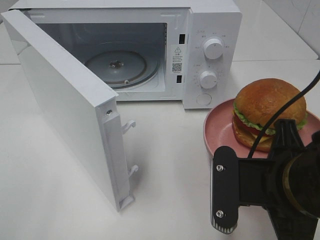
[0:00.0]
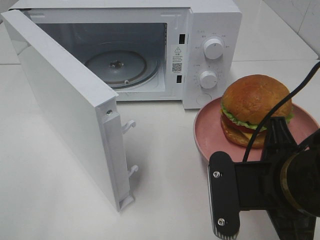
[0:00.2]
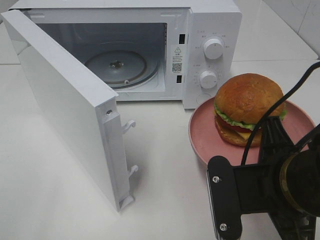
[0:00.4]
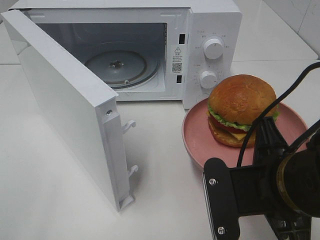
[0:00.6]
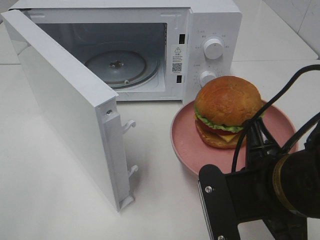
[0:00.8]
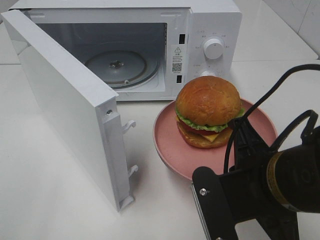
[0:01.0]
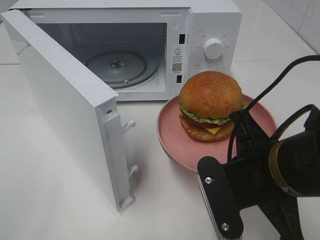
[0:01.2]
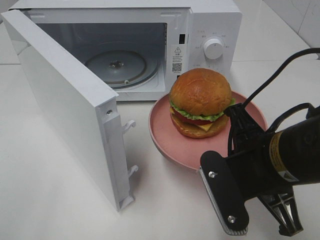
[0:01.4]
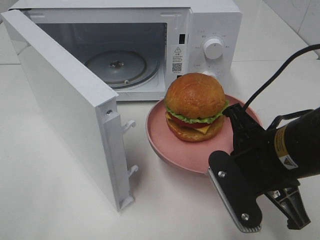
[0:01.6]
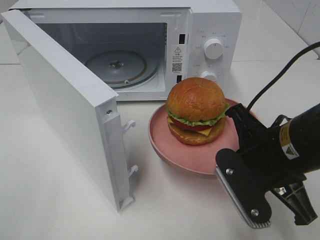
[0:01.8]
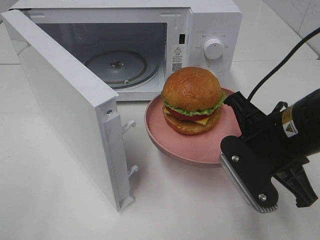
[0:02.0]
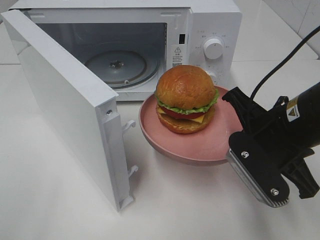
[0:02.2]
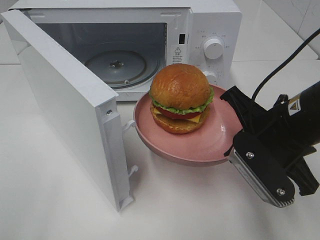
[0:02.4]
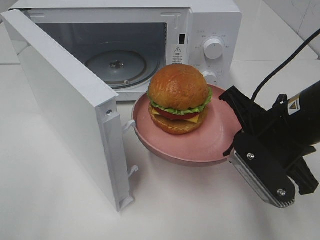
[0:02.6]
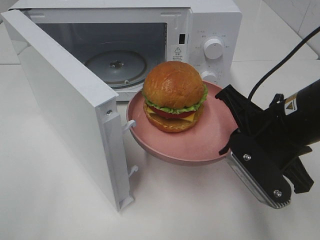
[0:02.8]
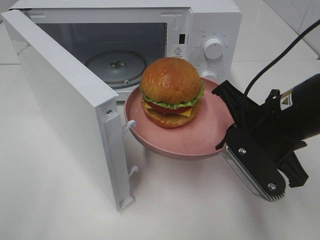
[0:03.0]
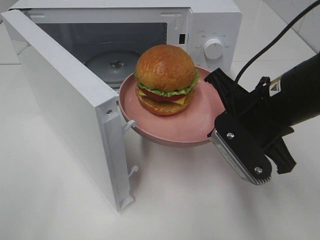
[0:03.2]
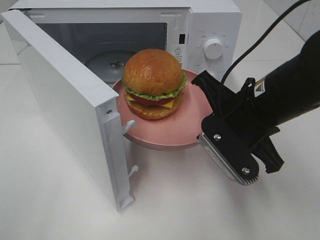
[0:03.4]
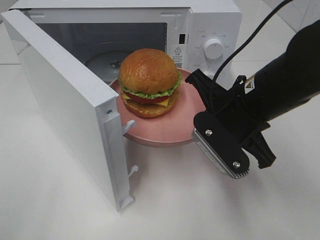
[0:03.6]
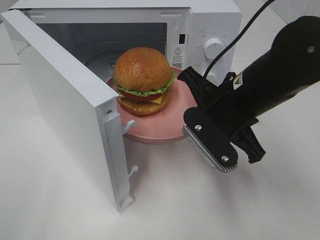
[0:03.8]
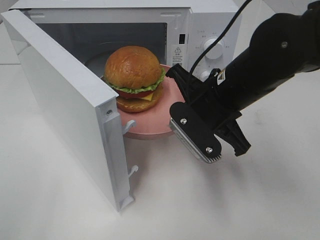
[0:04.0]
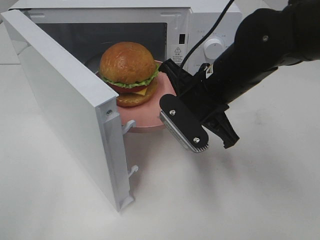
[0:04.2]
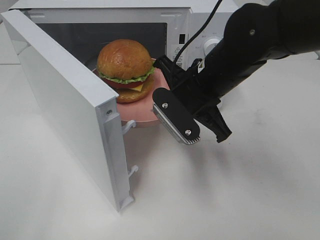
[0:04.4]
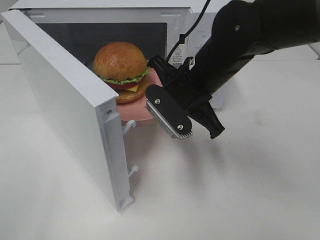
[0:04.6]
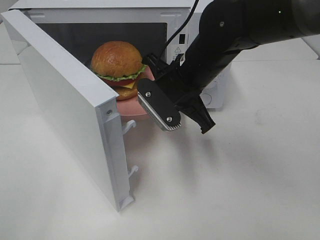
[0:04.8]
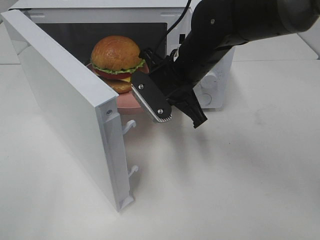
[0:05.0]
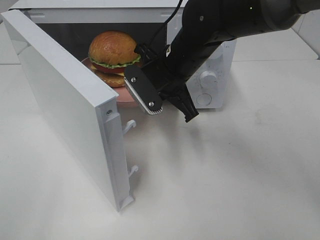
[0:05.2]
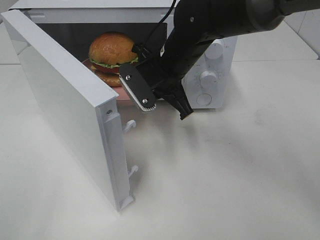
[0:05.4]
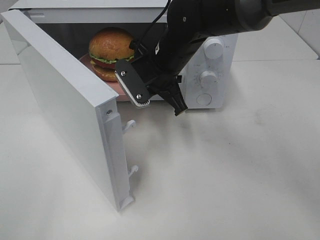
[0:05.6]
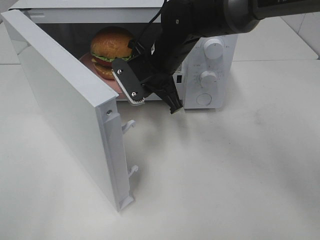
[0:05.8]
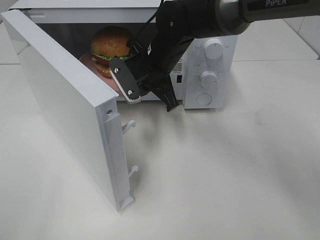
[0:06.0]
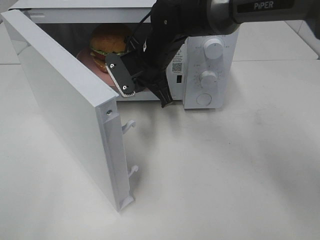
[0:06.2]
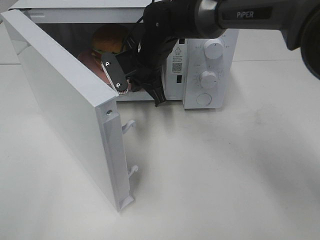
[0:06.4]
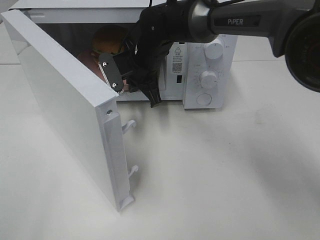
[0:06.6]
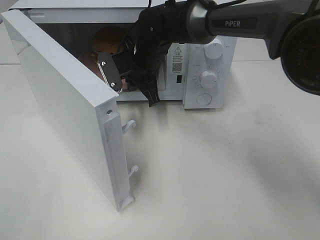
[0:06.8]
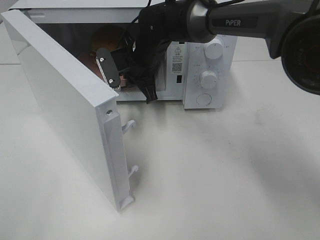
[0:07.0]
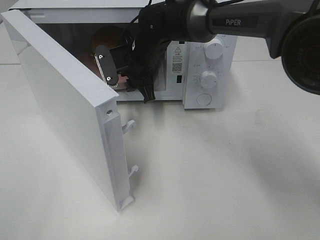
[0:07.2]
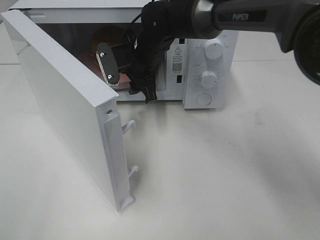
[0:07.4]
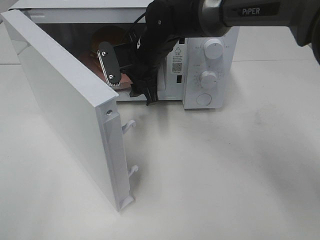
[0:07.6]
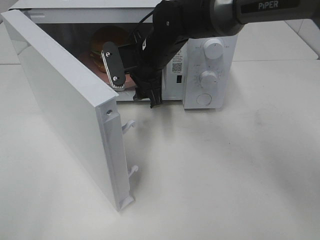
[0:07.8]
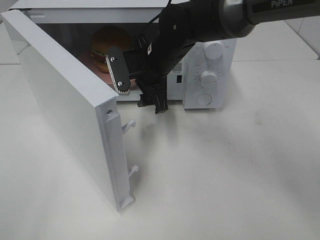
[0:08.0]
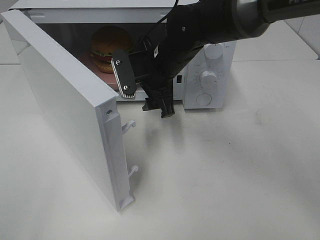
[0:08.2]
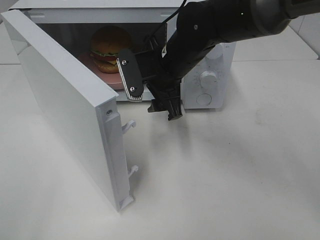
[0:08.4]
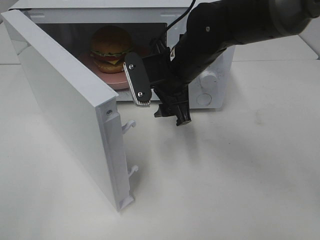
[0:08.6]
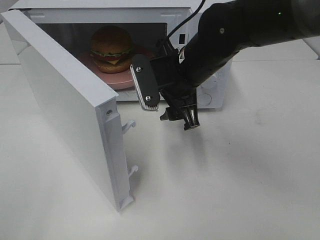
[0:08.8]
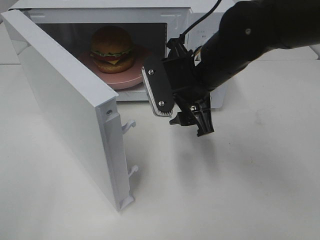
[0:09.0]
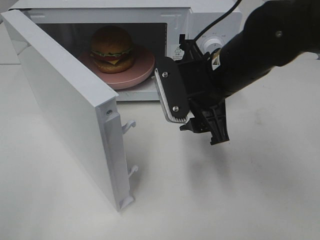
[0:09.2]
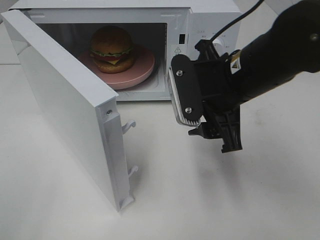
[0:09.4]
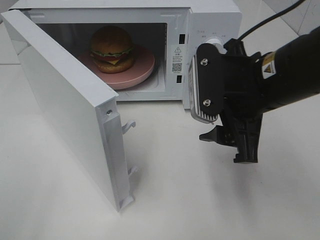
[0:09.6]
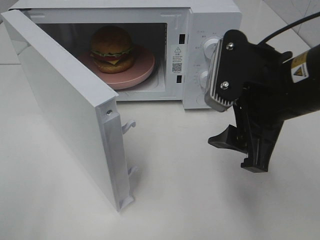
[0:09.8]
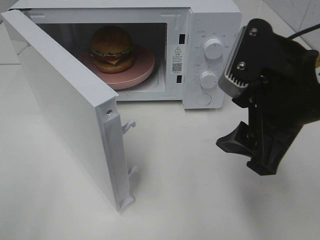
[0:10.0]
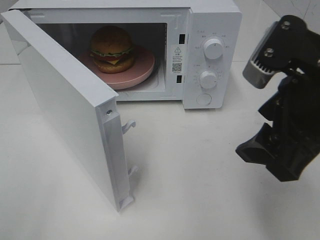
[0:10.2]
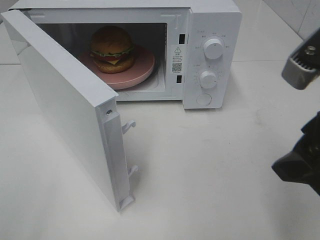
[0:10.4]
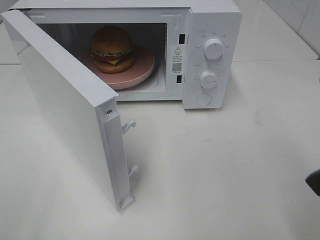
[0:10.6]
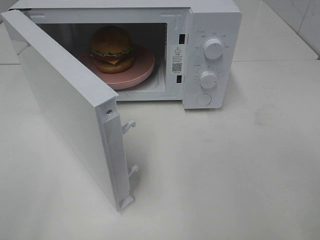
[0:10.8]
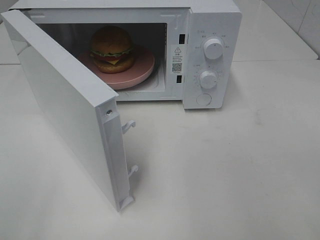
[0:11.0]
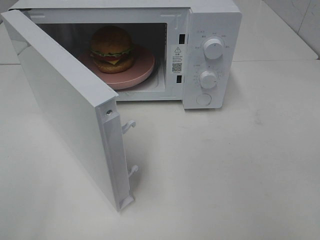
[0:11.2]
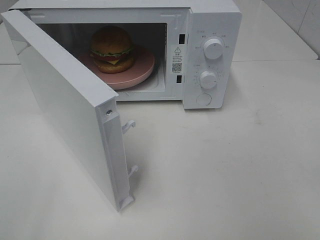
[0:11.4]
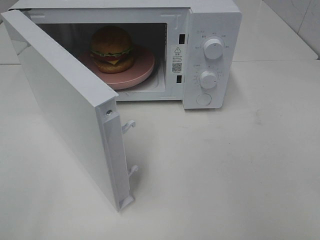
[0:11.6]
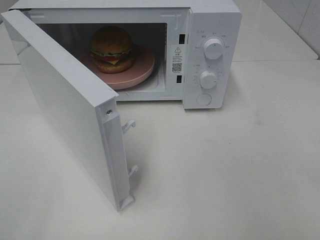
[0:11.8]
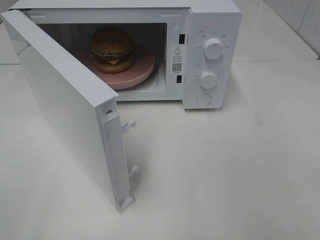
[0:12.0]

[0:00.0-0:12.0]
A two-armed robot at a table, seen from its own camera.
Task of the whole recording: Heat the burger.
Step, 0:00.0 to 0:07.2: Right hand: place the plate in the microwave.
0:03.0 to 0:04.4: The right gripper goes approximately 10 cm forward and to the left.
0:04.4 to 0:06.0: The right gripper is displaced forward and to the left by about 10 cm.
0:06.0 to 0:07.6: The right gripper opens up.
0:07.6 to 0:09.0: The right gripper is displaced backward and to the right by about 15 cm.
0:09.0 to 0:10.4: The right gripper travels backward, to the right and upward by roughly 20 cm.
0:10.4 to 0:12.0: The right gripper moves backward and to the right, roughly 15 cm.

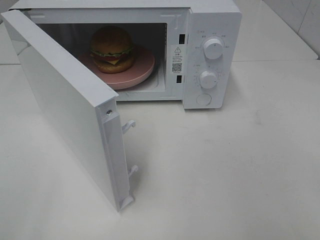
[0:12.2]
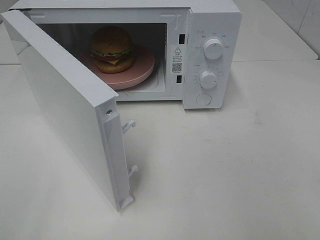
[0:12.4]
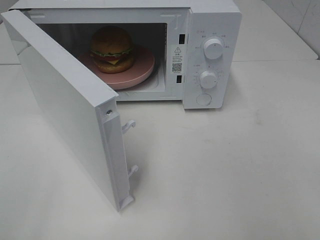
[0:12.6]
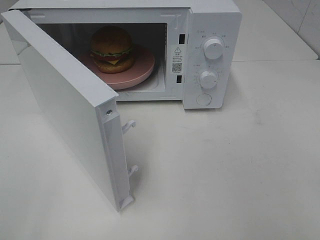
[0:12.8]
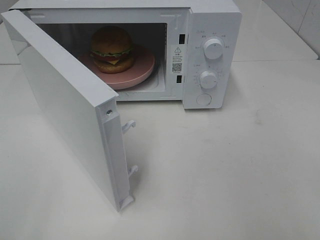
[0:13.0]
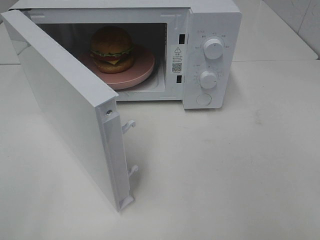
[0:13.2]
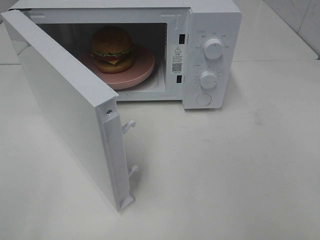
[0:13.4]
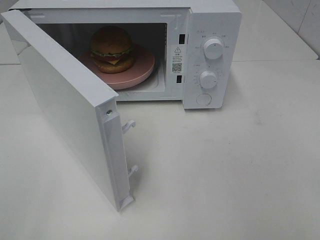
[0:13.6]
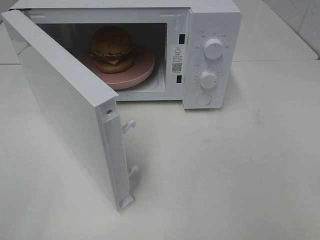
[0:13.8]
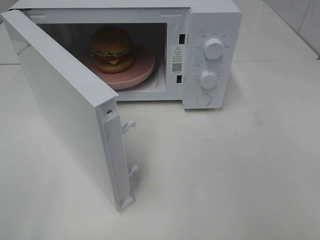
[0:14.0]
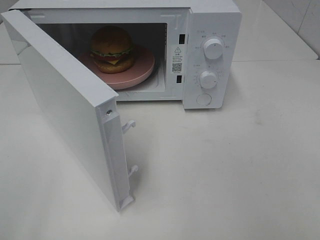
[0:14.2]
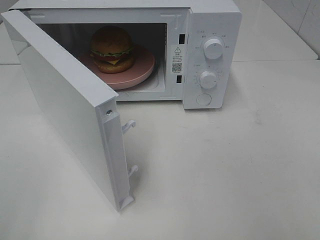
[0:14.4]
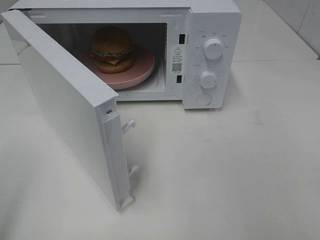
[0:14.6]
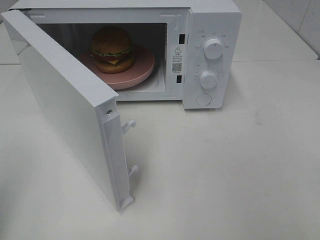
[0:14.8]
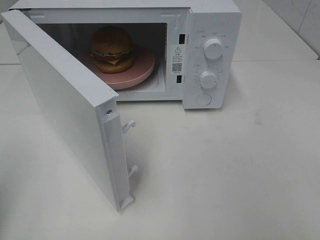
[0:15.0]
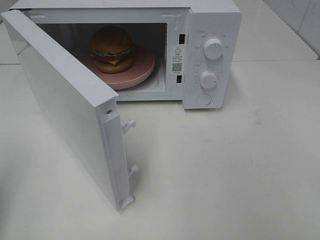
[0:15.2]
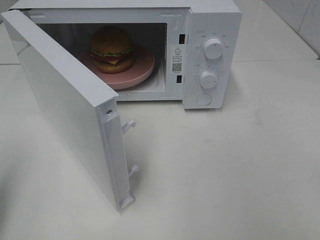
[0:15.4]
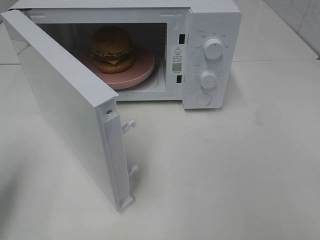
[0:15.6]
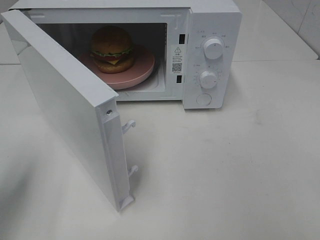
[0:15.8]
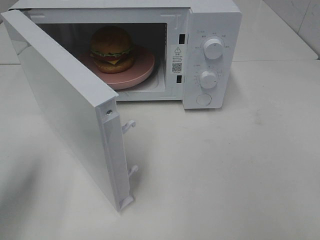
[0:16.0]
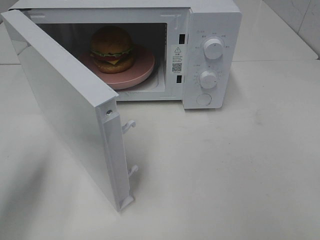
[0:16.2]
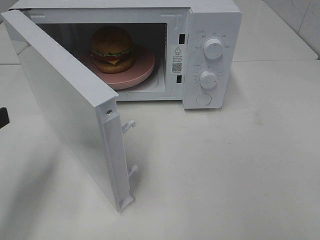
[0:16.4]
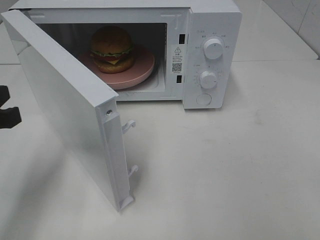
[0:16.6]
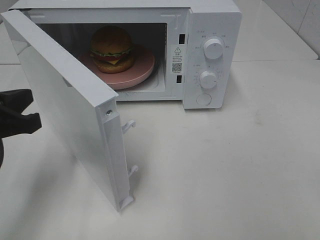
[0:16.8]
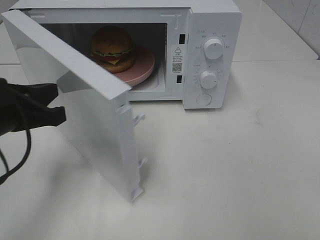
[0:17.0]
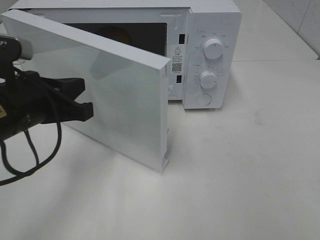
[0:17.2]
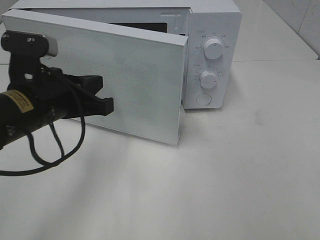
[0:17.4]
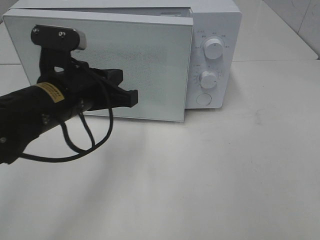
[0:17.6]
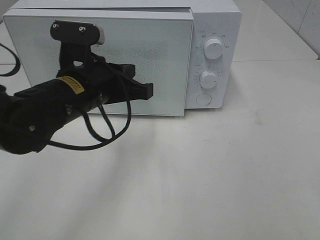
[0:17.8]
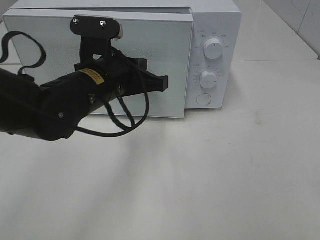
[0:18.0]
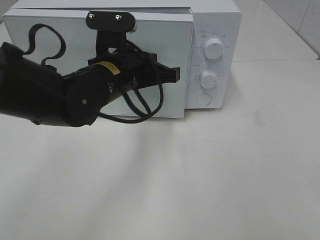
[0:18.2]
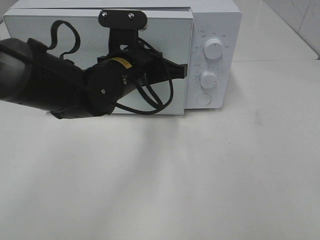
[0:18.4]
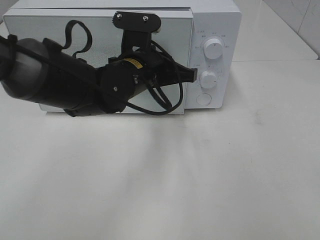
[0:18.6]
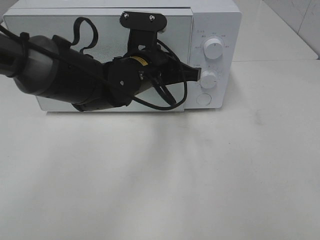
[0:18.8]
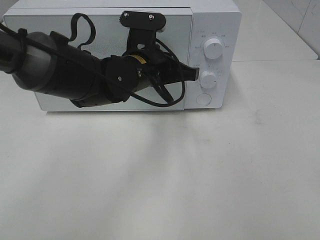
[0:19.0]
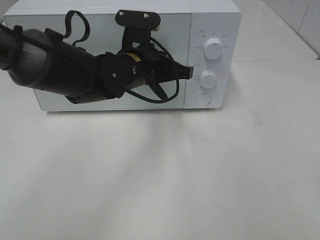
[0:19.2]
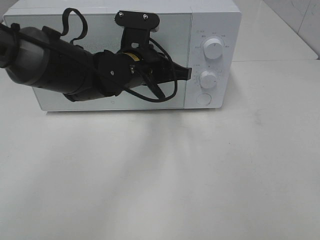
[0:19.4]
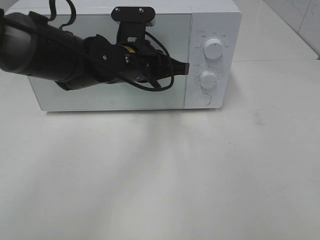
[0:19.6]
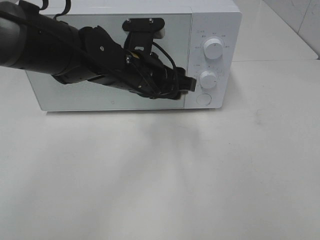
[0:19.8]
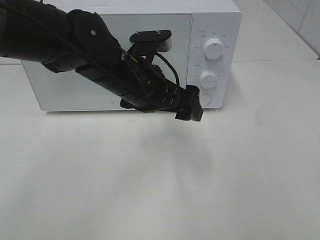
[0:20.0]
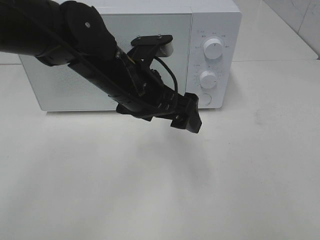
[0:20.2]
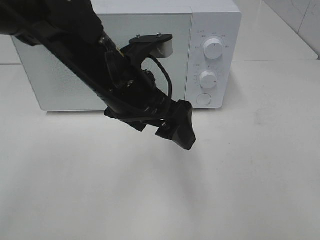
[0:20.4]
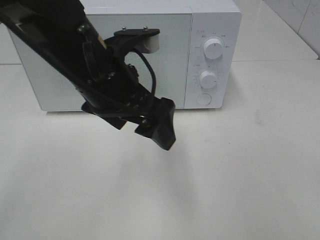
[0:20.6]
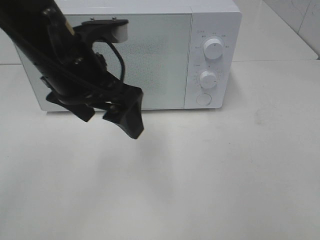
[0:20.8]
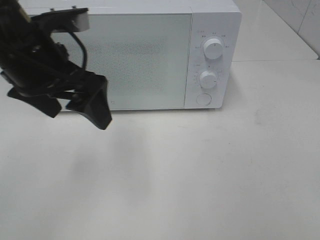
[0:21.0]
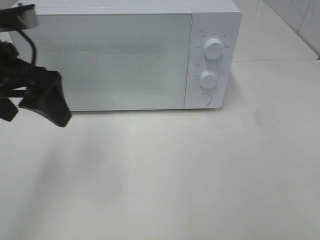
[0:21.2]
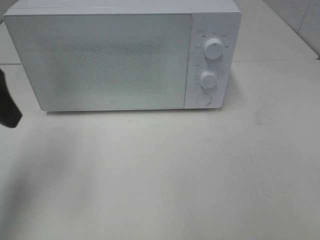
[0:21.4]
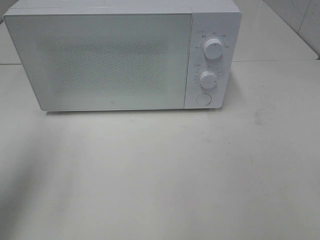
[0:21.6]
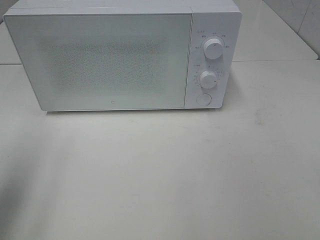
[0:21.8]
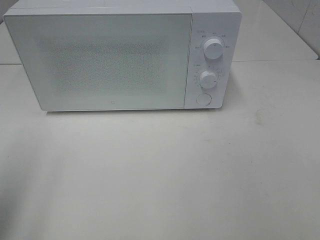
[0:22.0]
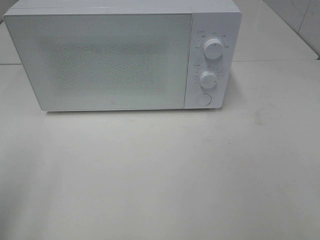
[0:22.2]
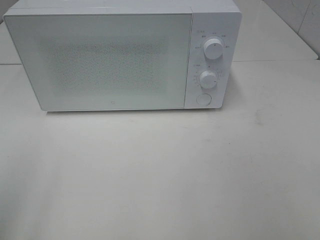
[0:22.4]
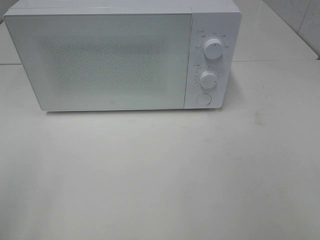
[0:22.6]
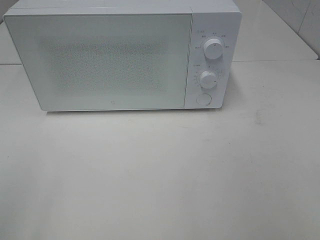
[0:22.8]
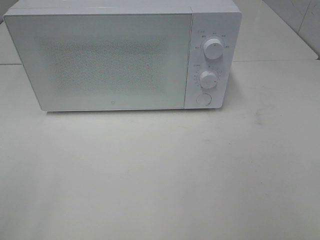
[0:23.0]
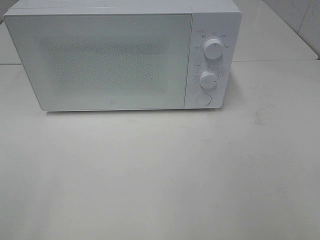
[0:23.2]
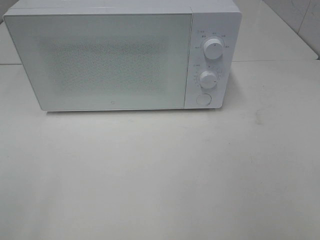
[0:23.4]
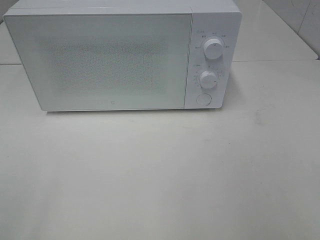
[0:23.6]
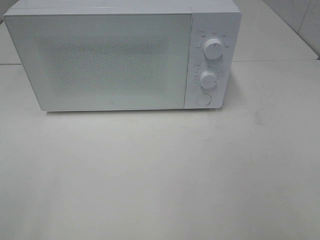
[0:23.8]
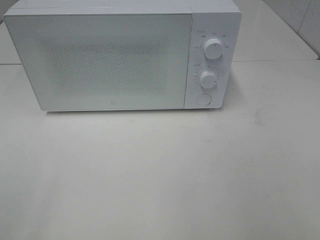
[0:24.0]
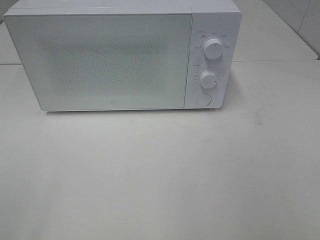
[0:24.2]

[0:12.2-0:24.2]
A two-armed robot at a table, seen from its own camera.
Task of the whole recording: Heat the burger.
Step, 0:12.2 to 0:19.6: Left hand: close the microwave door.
0:12.2 to 0:13.8: Both grippers stay about where they are.
0:15.2 to 0:16.6: The left gripper is displaced to the right and forward by about 10 cm.
0:16.6 to 0:18.2: The left gripper is displaced to the right and forward by about 25 cm.
0:18.2 to 0:19.8: The left gripper opens.
0:19.8 to 0:21.2: The left gripper travels to the left and upward by roughly 20 cm.
0:21.2 to 0:22.6: The left gripper moves backward and to the left, about 25 cm.
